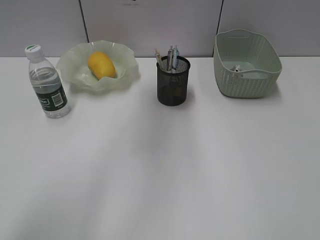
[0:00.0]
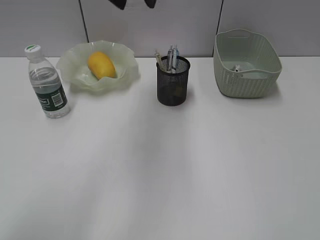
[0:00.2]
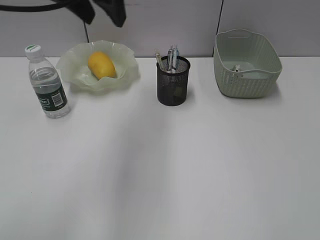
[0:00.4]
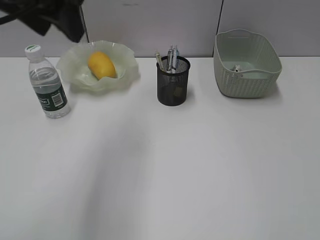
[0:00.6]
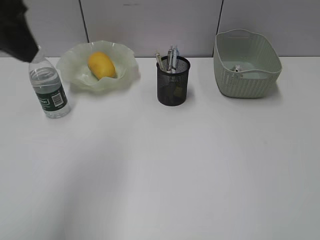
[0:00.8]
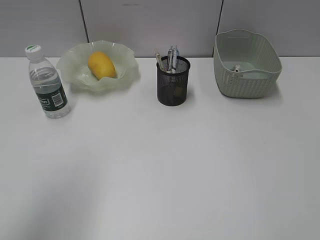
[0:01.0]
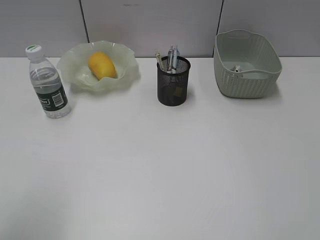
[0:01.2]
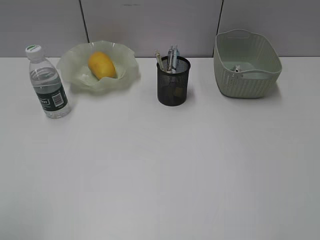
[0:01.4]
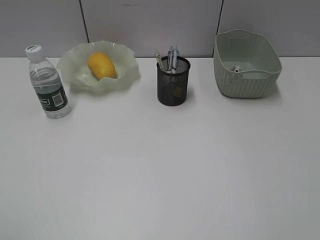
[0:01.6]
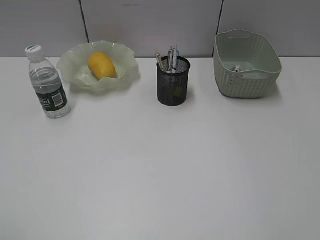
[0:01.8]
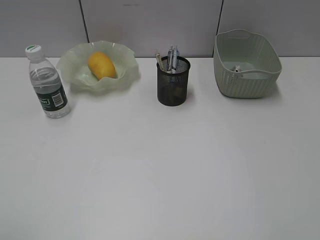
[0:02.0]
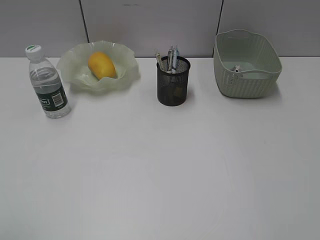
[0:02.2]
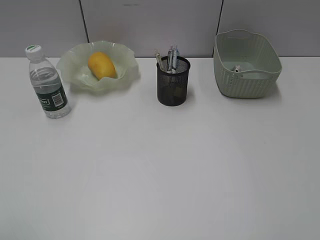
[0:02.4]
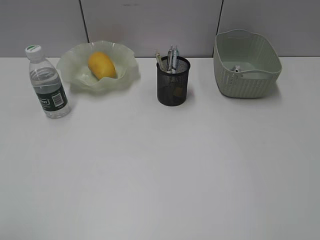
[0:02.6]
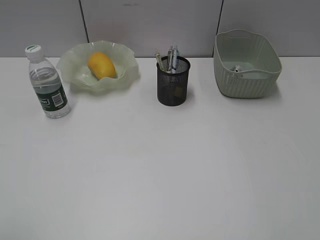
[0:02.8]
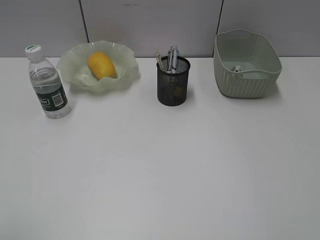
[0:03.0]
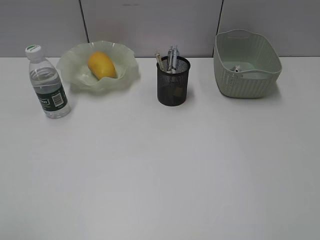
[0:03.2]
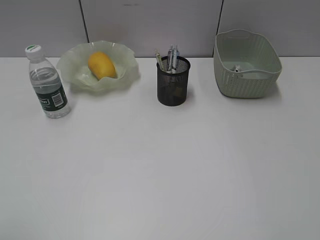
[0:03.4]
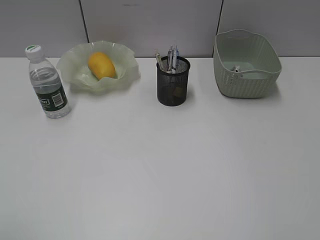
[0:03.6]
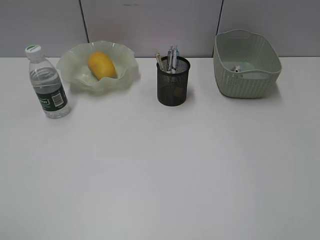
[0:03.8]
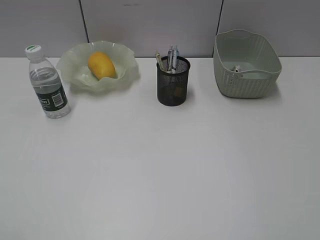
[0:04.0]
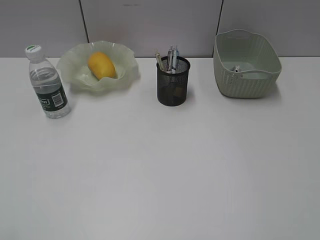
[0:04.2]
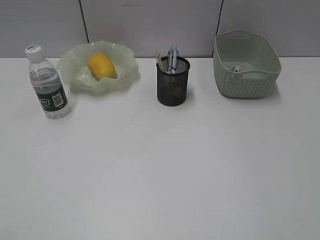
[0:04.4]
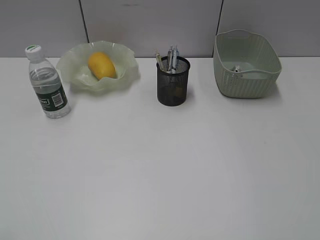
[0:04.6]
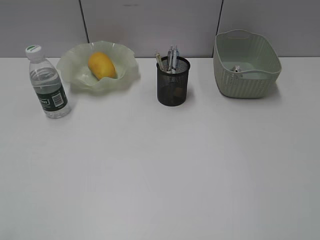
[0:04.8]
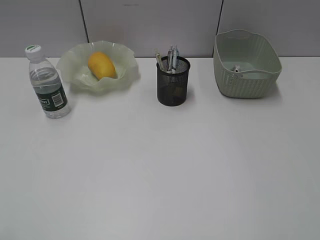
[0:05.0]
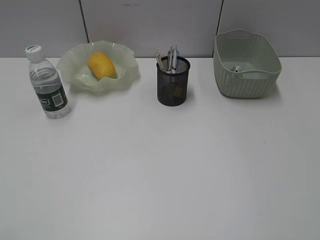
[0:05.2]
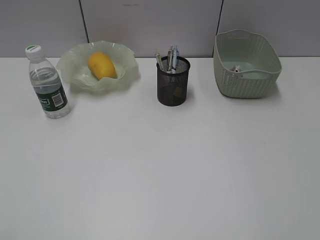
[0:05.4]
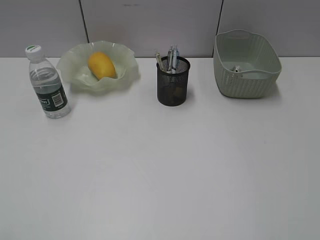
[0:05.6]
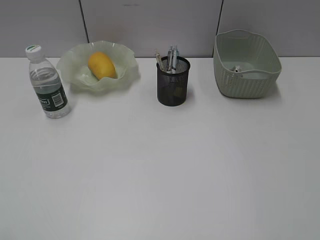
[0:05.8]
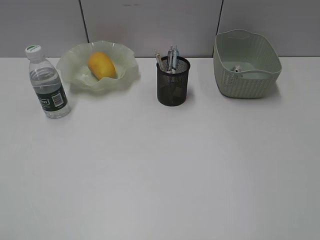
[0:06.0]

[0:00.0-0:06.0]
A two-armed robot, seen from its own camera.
0:00.0 to 0:01.6: The left gripper travels backward and to the left by roughly 40 cm.
0:04.4 to 0:06.0: Both grippers stay put.

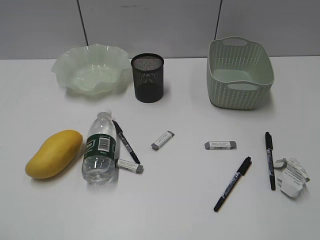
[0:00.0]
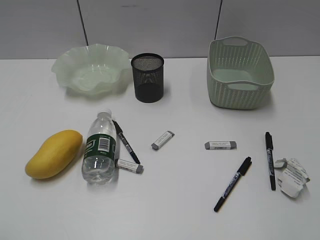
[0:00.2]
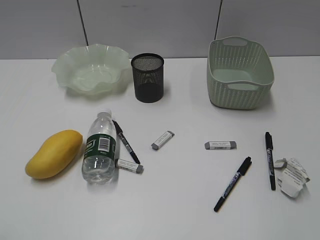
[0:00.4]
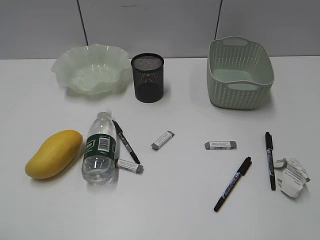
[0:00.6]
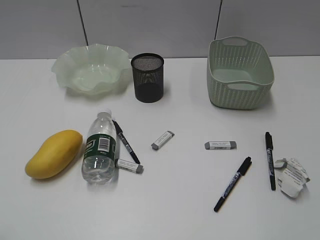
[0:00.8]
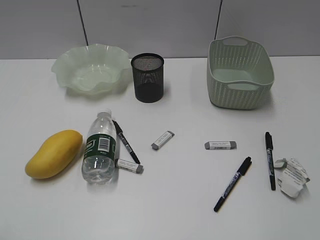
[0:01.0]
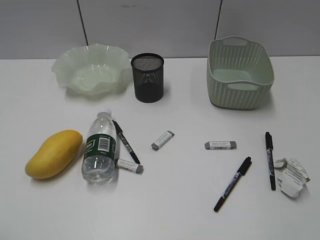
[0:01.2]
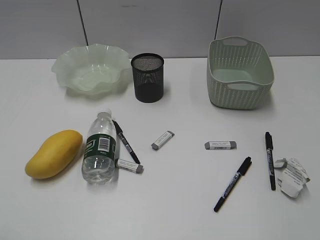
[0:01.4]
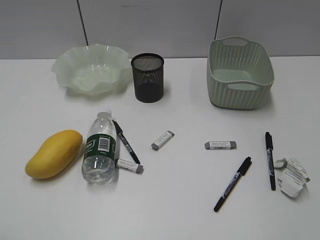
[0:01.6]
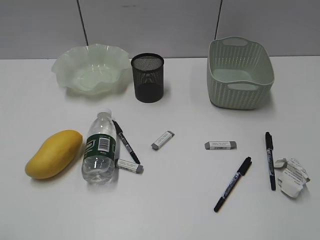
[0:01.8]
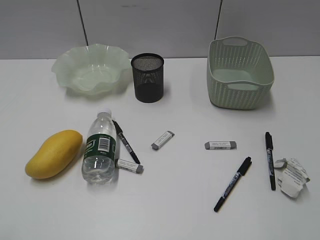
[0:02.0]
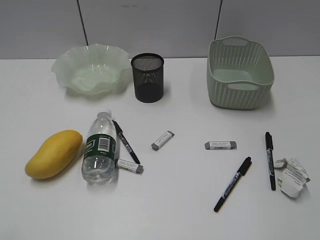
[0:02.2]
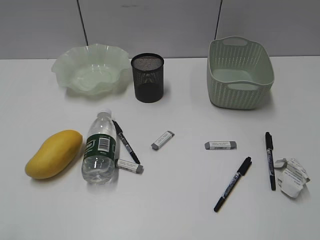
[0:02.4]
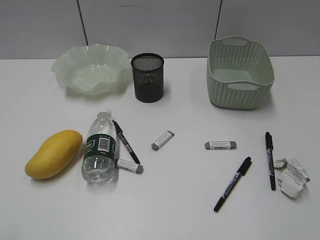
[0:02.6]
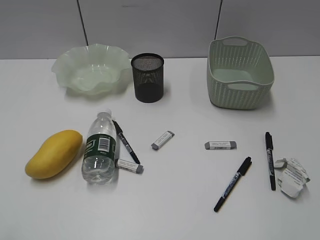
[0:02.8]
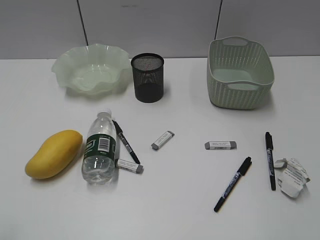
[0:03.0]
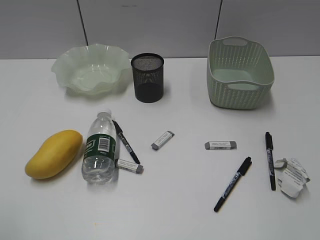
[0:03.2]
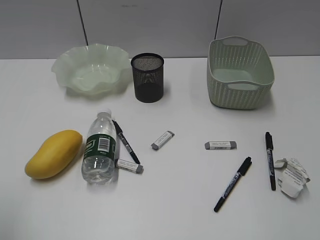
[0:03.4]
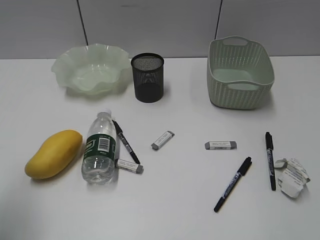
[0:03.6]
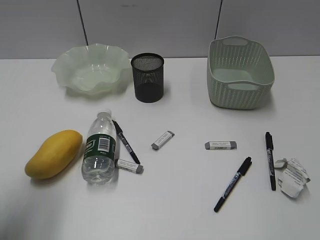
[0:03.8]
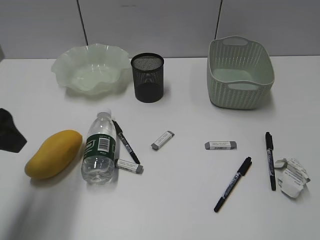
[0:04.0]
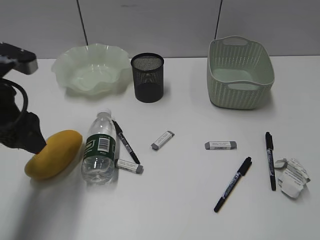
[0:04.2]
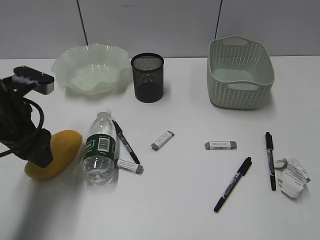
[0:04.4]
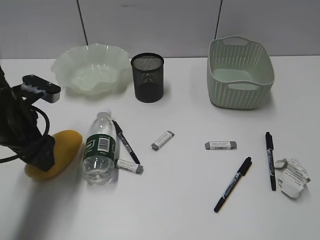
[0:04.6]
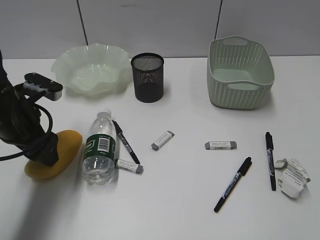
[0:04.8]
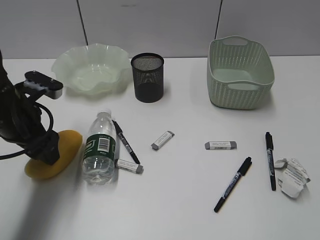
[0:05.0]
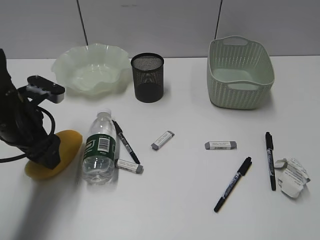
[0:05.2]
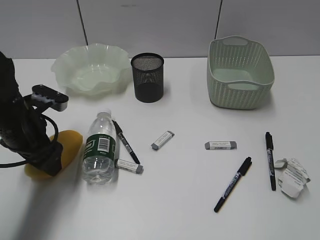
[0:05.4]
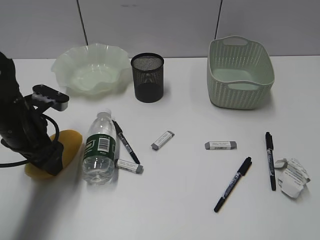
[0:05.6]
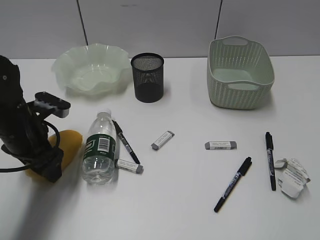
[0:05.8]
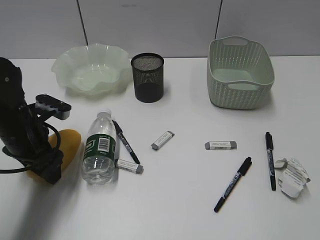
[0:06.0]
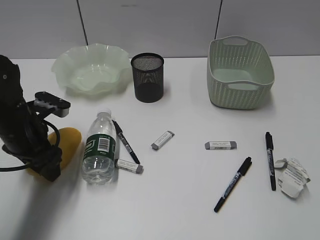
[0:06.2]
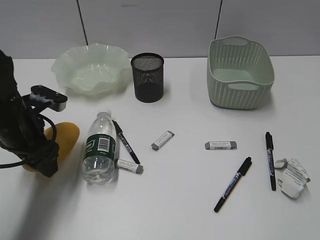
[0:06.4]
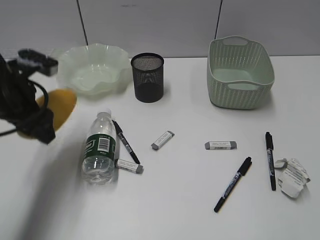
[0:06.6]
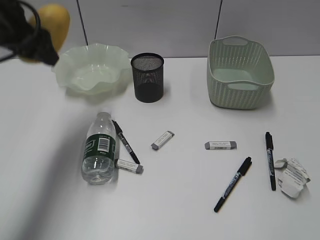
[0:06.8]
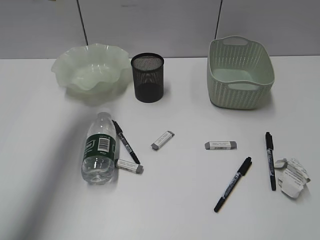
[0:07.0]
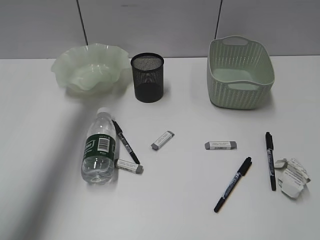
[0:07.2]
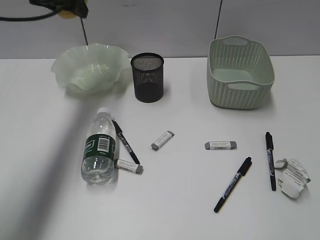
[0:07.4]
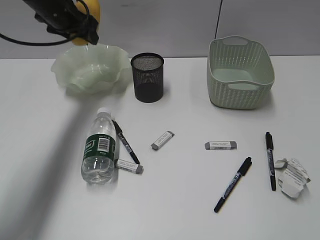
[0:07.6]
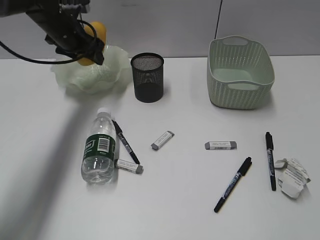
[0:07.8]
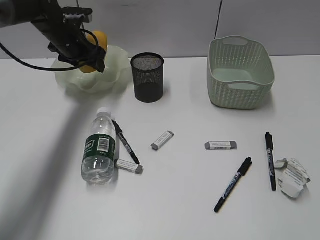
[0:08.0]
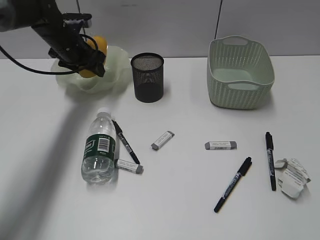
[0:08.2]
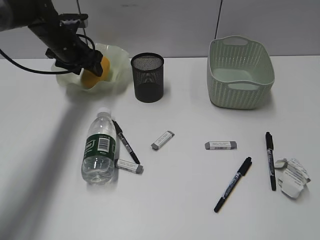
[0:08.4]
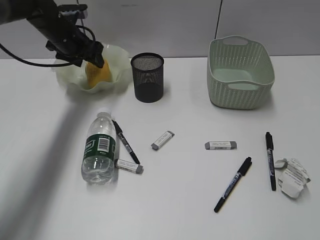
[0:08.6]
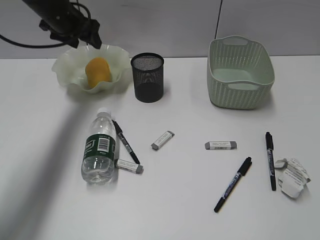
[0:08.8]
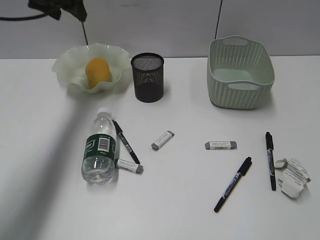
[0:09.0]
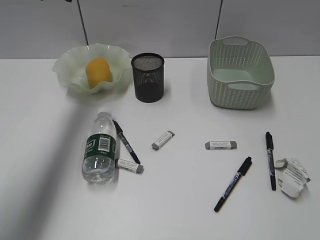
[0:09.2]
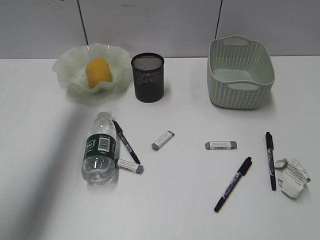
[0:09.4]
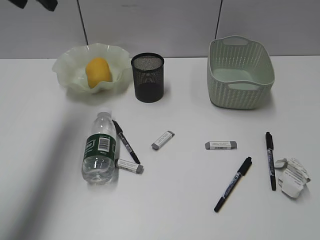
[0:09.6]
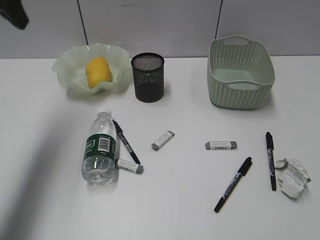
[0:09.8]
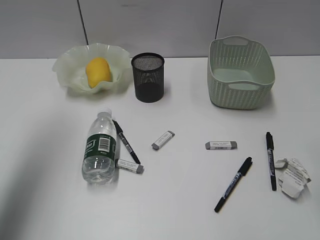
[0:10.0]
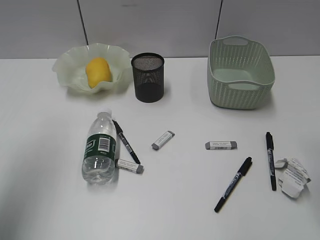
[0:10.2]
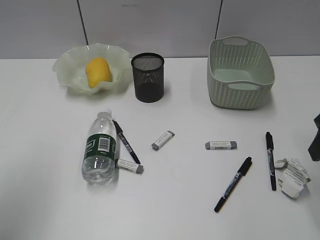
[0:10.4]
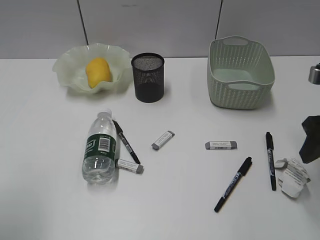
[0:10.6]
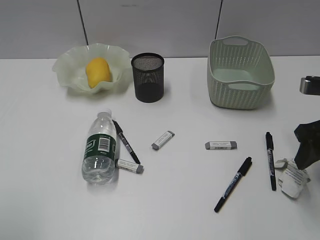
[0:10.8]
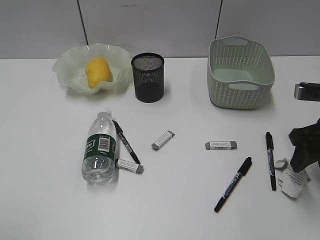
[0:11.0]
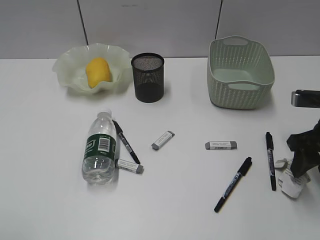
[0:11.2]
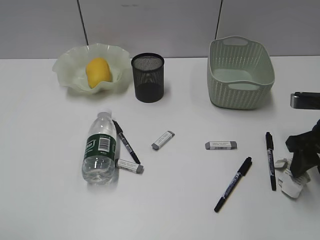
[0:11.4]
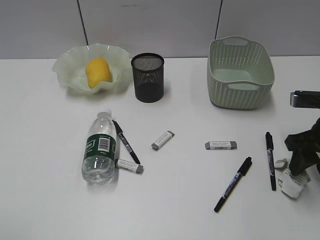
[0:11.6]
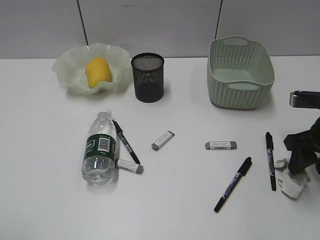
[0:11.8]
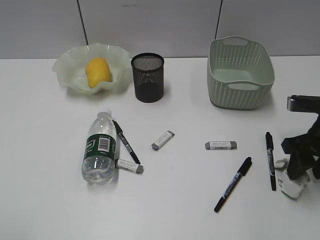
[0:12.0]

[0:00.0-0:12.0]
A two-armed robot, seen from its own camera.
Step, 0:04.0 to 0:06.0: Grasp the mango with left gripper.
Step, 0:06.2 to 0:08.6: Place the mango in the plate with left gripper.
0:03.0 to 0:04.4: The left gripper goes about 25 cm forward.
0:04.4 to 0:06.0: The left gripper goes about 5 cm downward.
0:06.0 to 0:07.6: The left gripper shifts some 25 cm forward and upward.
0:07.6 to 0:09.0: The left gripper travels upward by about 5 cm.
0:09.0 to 0:10.4: The right gripper shifts roughly 25 cm forward. Meanwhile the left gripper travels backward by some 35 cm.
0:10.4 to 0:12.0: The right gripper travels downward by approximately 10 cm. The left gripper shifts about 15 cm backward and downward.

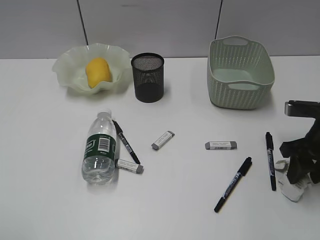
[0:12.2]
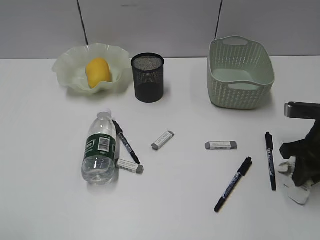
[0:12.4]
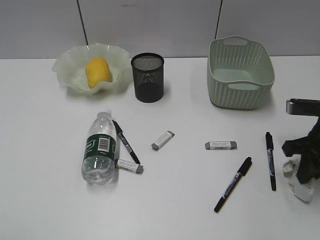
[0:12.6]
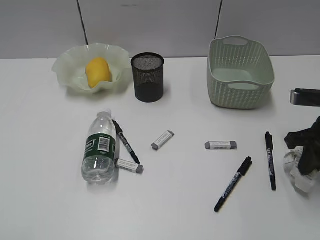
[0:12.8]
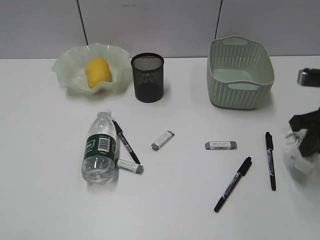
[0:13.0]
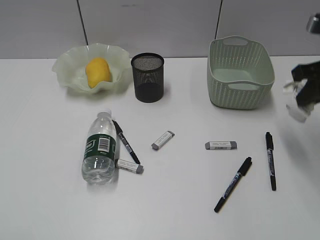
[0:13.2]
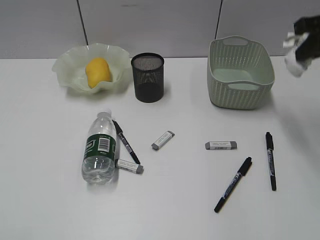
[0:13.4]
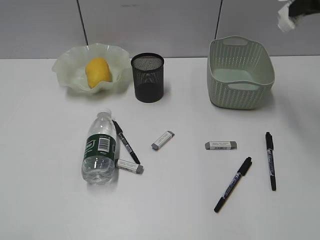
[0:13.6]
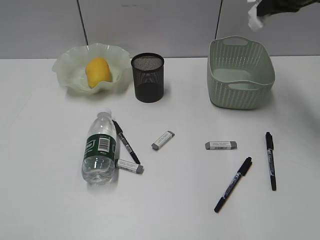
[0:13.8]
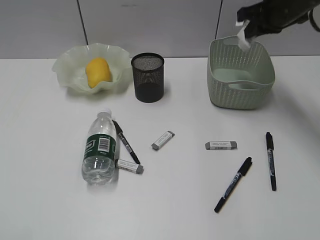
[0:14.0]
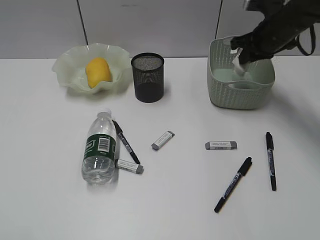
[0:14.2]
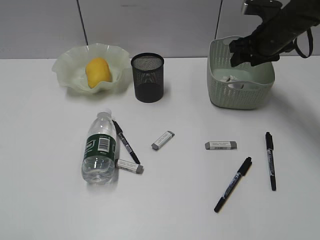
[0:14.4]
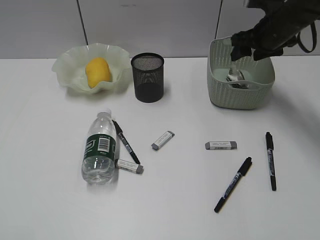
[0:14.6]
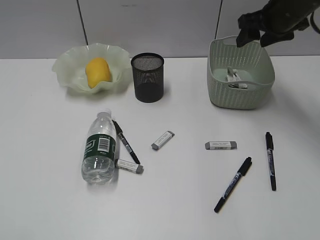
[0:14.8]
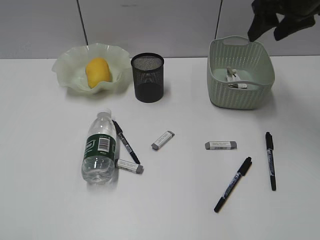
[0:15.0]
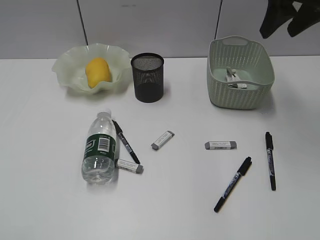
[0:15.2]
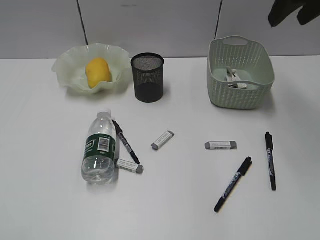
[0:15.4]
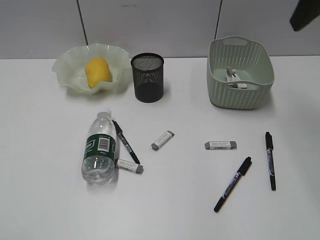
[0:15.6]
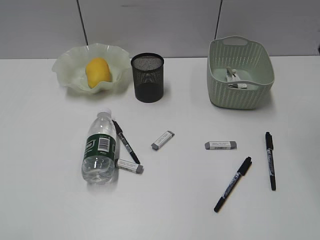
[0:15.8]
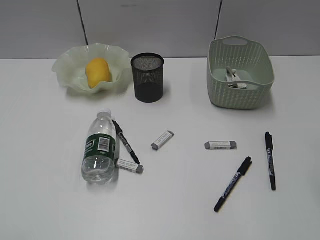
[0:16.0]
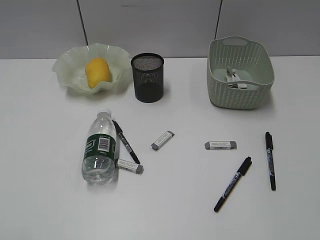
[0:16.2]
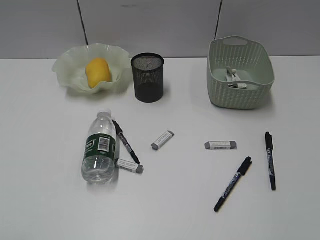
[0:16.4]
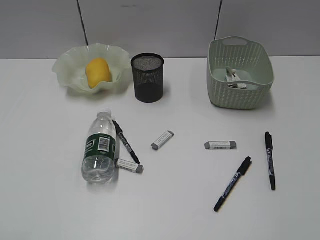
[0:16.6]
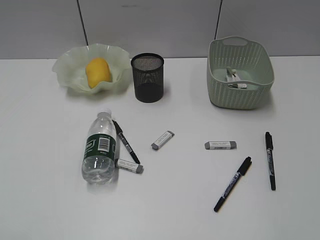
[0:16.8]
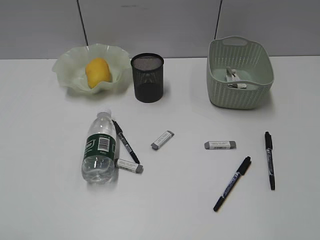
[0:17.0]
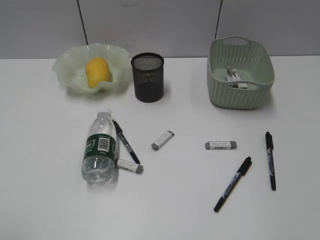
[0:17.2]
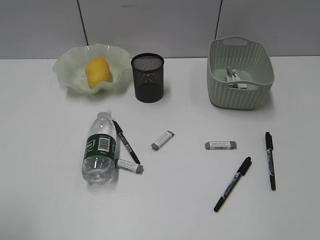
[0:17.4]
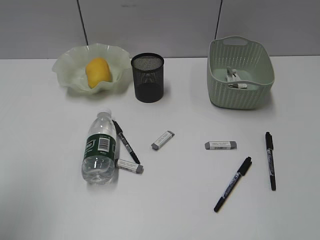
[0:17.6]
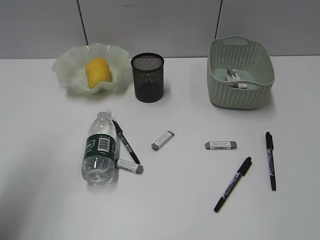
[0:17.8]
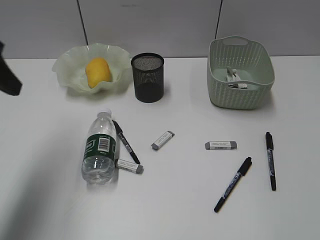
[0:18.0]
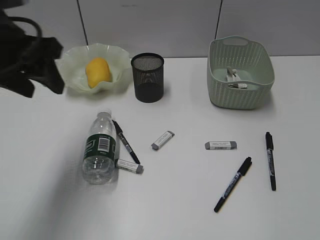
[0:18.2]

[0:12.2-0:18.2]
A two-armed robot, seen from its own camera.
Step, 0:12.6 to 0:14.4: Place the waste paper in the basket with right gripper.
0:12.2 to 0:13.8: The right gripper shifts roughly 25 cm upward and forward, and closes up.
0:13.8 to 0:15.2: The right gripper travels downward and back again, approximately 10 cm each way, and opens up.
0:15.2 to 0:16.6: The right gripper goes roughly 35 cm backward.
0:16.6 to 0:18.2: The left gripper heads forward, covering approximately 30 cm.
